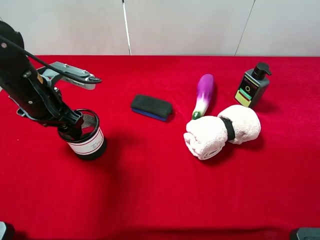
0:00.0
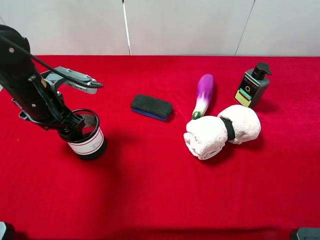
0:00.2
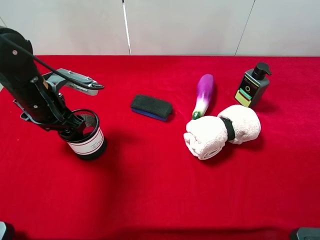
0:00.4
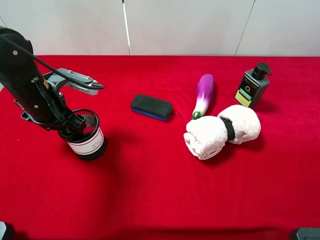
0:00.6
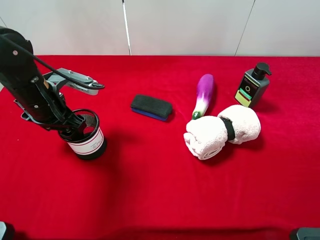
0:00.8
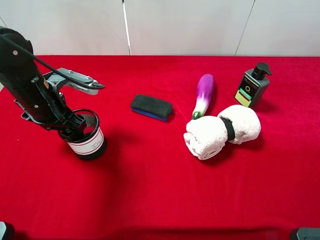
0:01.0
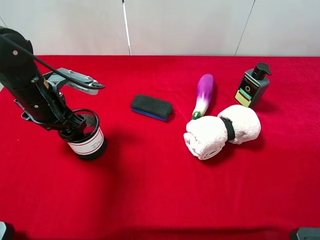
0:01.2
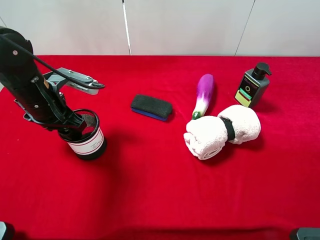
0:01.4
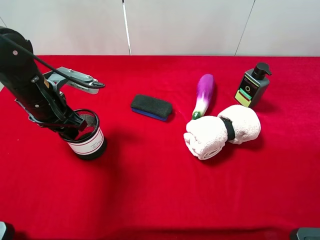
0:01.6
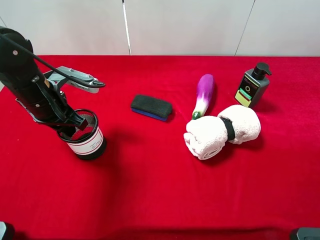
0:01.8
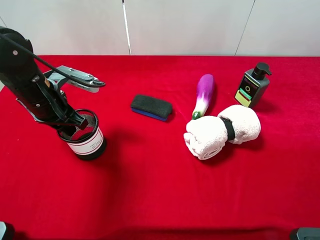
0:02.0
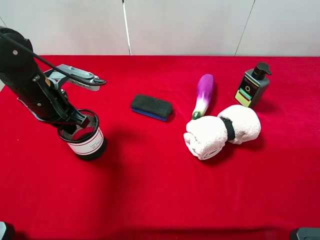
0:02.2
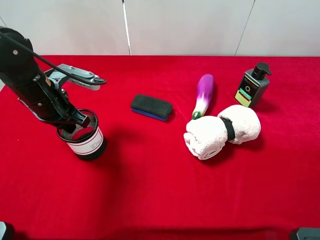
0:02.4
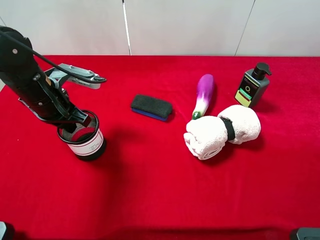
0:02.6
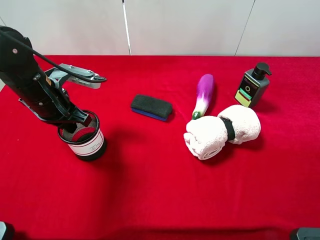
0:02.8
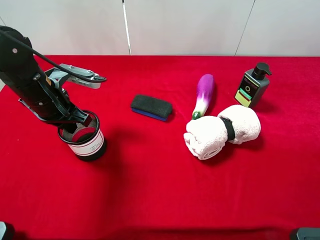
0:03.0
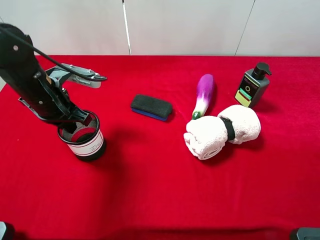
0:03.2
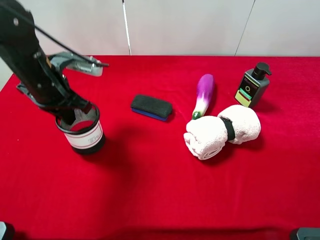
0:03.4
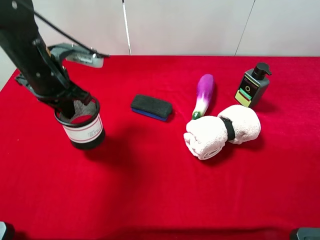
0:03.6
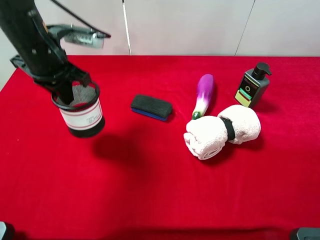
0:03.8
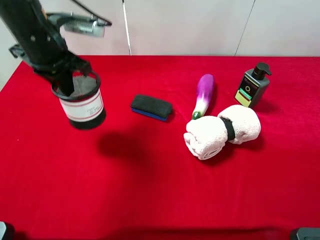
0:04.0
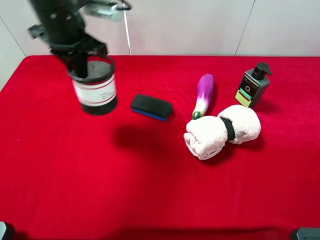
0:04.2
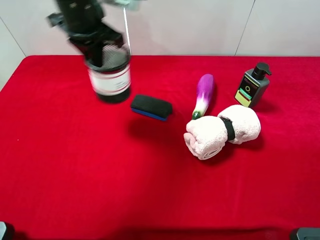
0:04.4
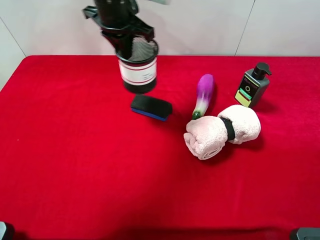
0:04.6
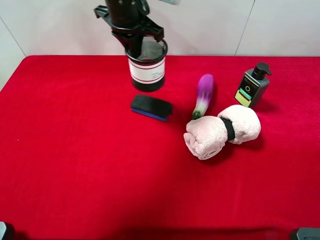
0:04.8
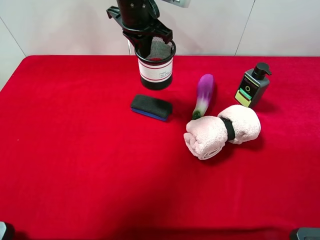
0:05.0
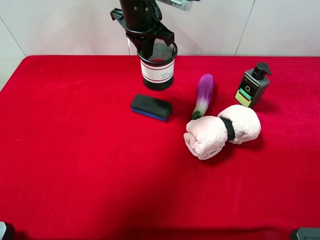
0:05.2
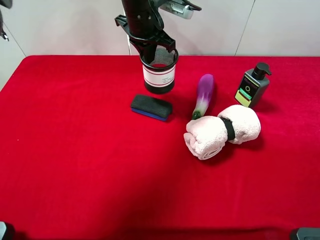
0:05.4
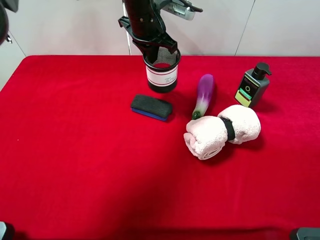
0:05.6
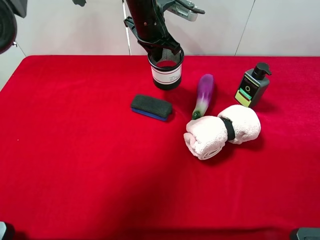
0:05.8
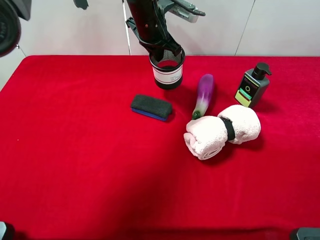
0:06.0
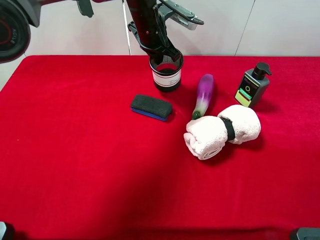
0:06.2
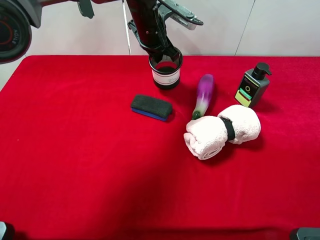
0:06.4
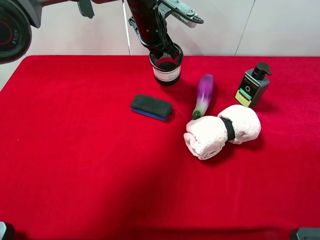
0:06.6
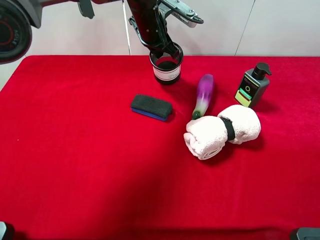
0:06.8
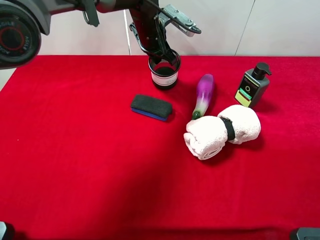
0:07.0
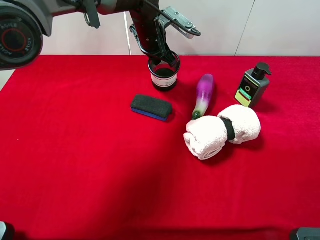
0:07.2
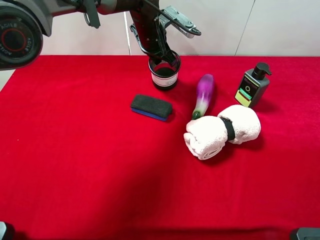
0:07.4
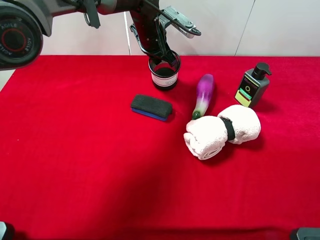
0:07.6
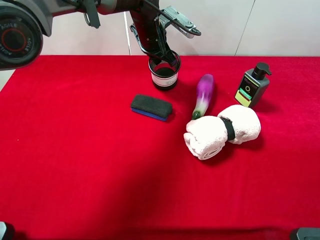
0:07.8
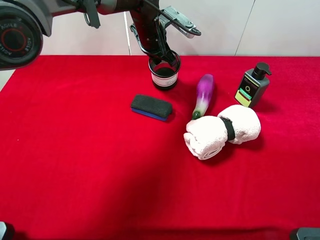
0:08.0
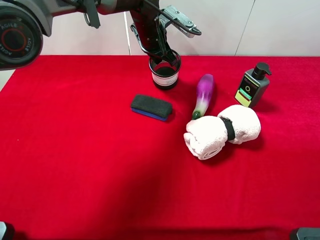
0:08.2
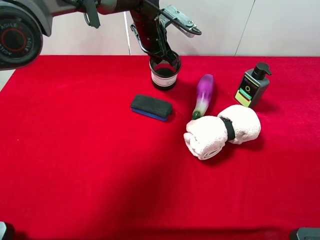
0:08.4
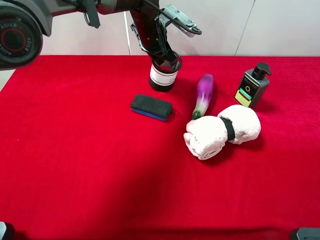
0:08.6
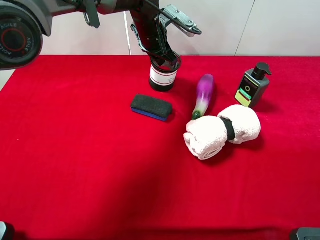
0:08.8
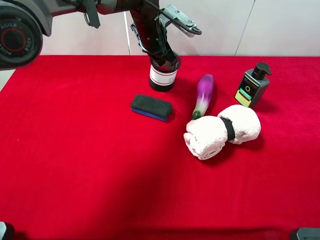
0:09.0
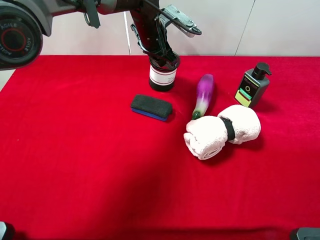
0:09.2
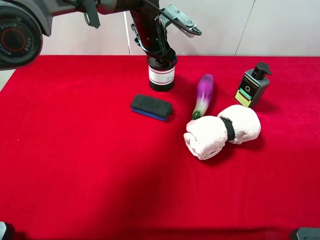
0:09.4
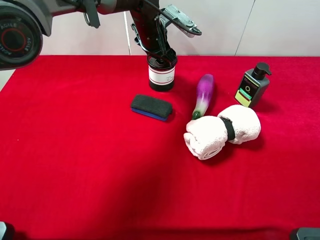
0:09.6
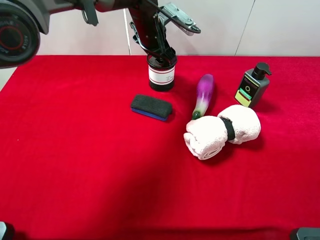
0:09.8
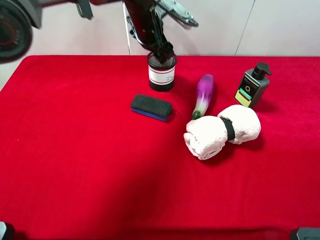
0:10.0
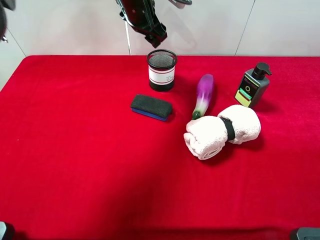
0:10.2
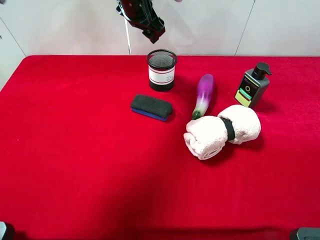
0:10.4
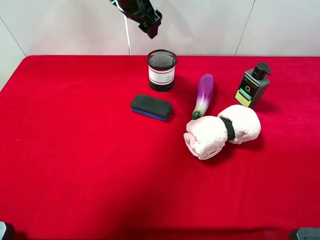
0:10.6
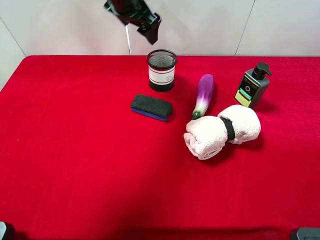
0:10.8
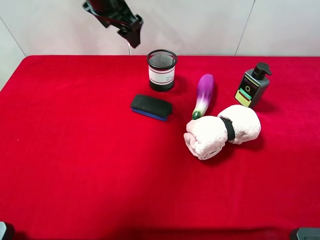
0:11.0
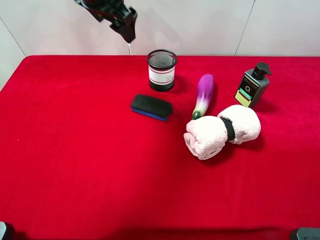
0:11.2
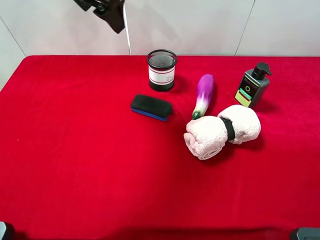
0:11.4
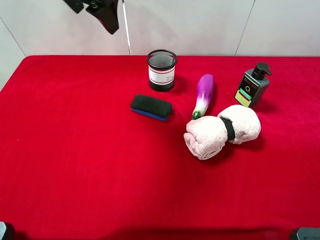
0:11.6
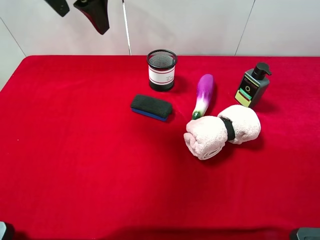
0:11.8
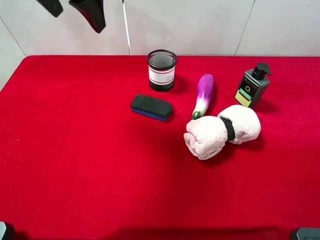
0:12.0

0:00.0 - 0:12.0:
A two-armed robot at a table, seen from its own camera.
Task of the whole recording: the gripper move the object.
Step, 0:00.0 - 0:02.8: Grasp the pen container with the left gripper.
Step, 0:03.0 - 0:10.4: Place the pen container on the table with the left gripper.
0:00.0 - 0:01.6: The left gripper closes up.
0:01.6 - 0:03.0: The left gripper closes its fingers.
0:03.0 - 0:04.4: The left gripper goes about 20 cm upward, forward and to the right.
0:04.4 - 0:06.0: The left gripper moves to the right, forward and downward, some 15 cm.
0:06.0 - 0:07.6: The grippers move only a little.
0:07.6 - 0:09.0: The left gripper opens its fingers.
0:09.0 - 0:10.4: The left gripper travels upward by some 10 cm, and opens up.
0:10.4 - 0:12.0: The left gripper travels backward, upward and to the left by about 20 cm.

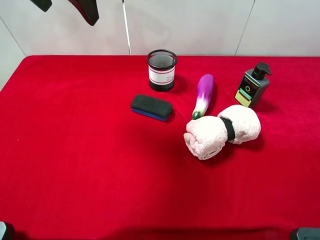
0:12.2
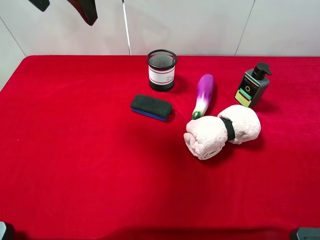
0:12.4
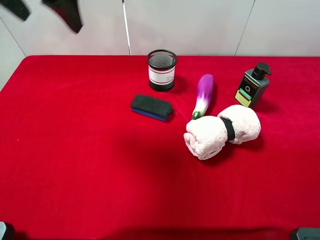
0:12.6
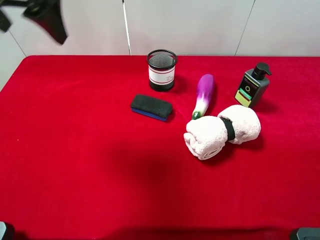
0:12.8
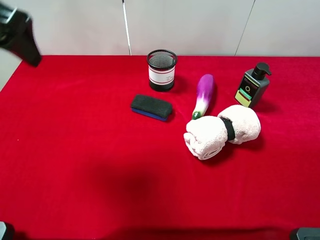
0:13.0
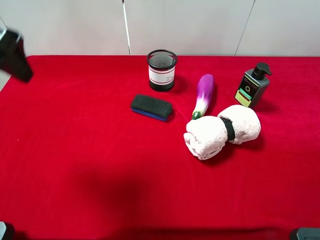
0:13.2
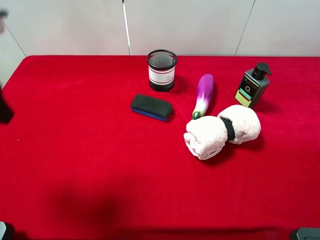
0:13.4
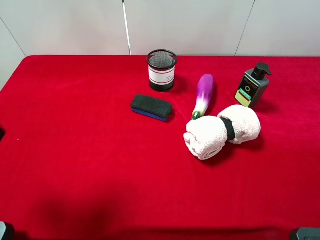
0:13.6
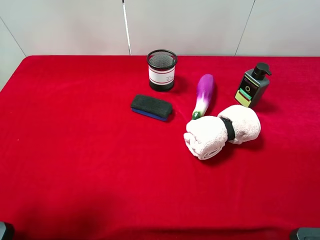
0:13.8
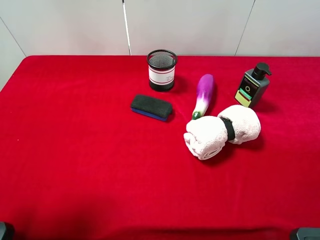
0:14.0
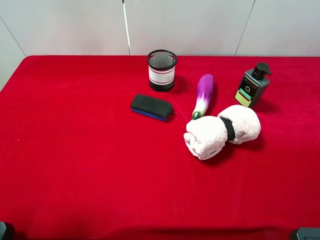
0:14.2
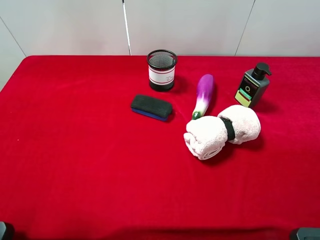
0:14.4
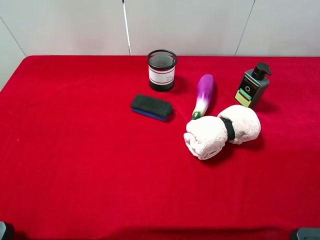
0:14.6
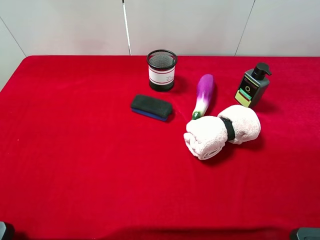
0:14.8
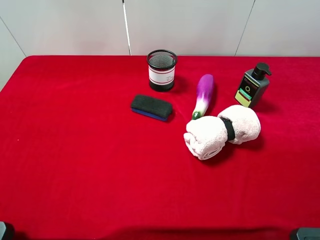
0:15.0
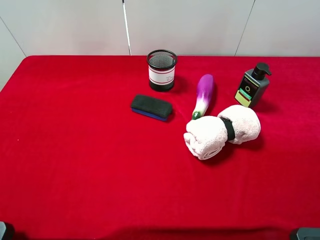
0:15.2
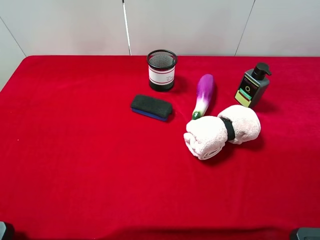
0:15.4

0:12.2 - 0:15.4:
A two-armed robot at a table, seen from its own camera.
Task of the whole recording: the gripper move the object.
0:12.2 - 0:13.8: The left gripper is displaced backward, to the left and downward by roughly 25 cm.
0:13.8 - 0:15.4: The left gripper moves backward, approximately 10 cm.
